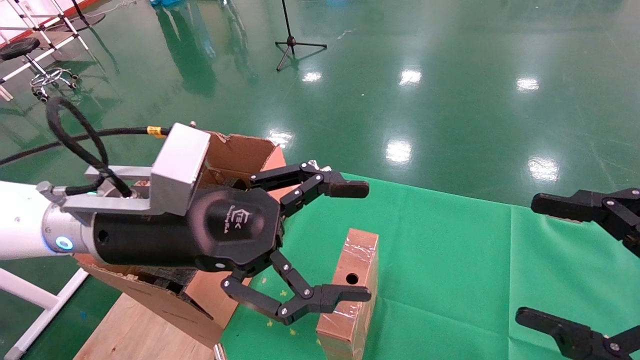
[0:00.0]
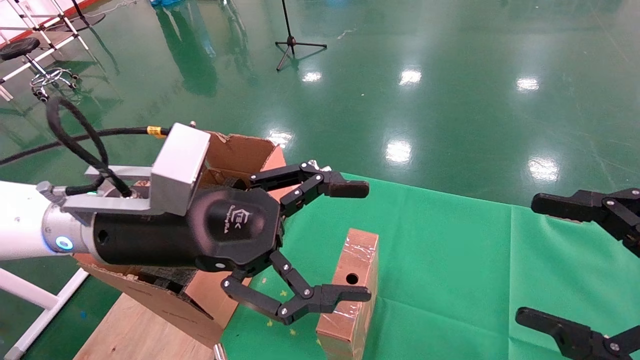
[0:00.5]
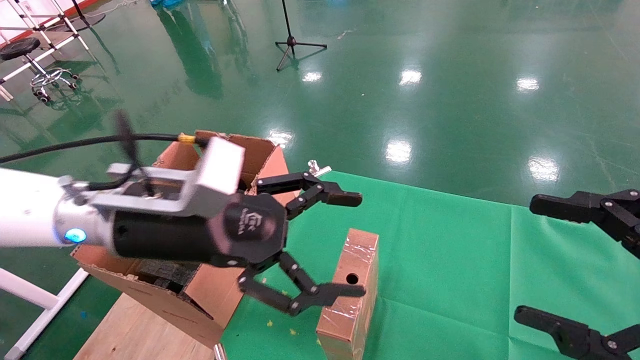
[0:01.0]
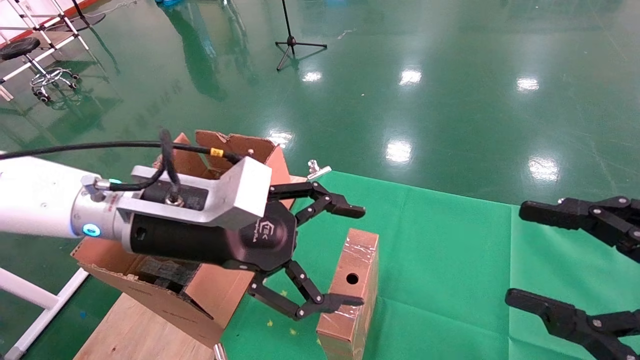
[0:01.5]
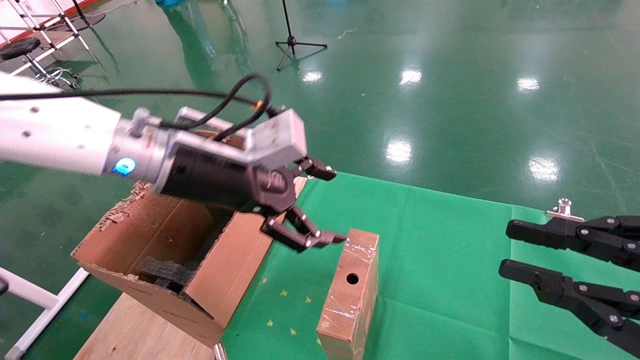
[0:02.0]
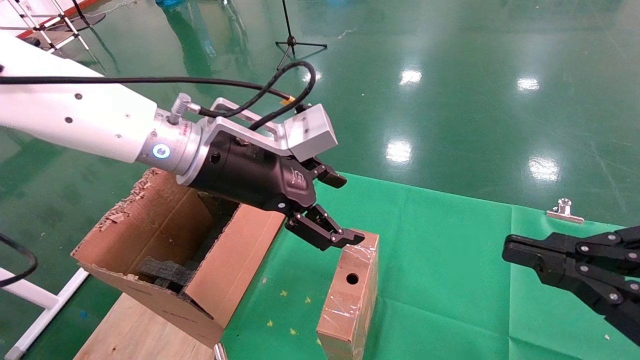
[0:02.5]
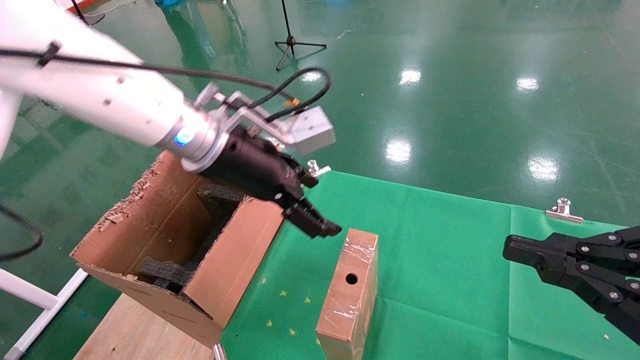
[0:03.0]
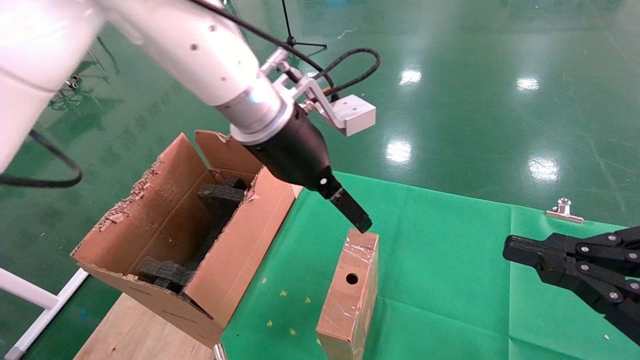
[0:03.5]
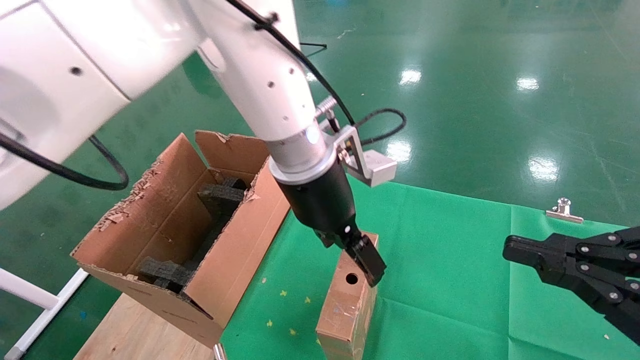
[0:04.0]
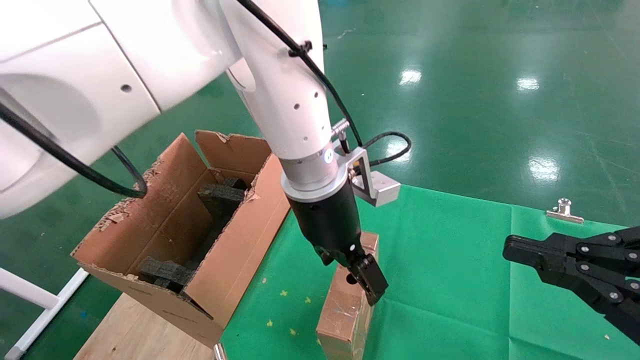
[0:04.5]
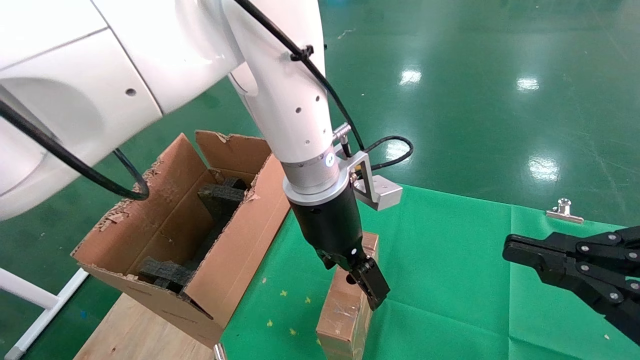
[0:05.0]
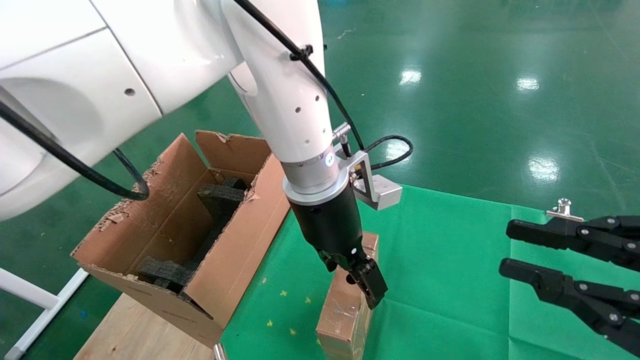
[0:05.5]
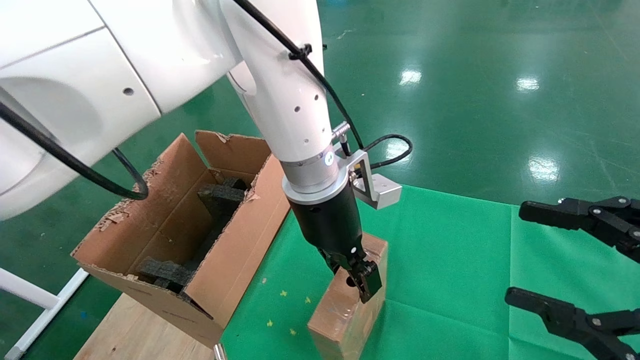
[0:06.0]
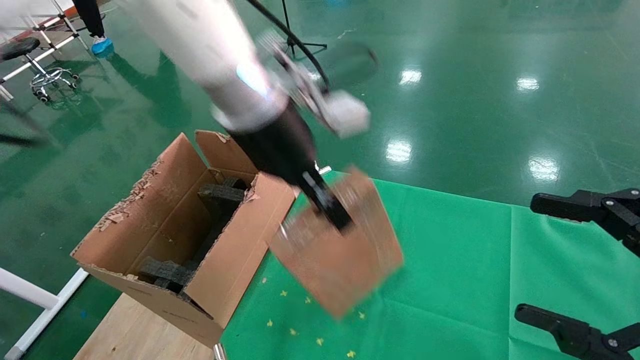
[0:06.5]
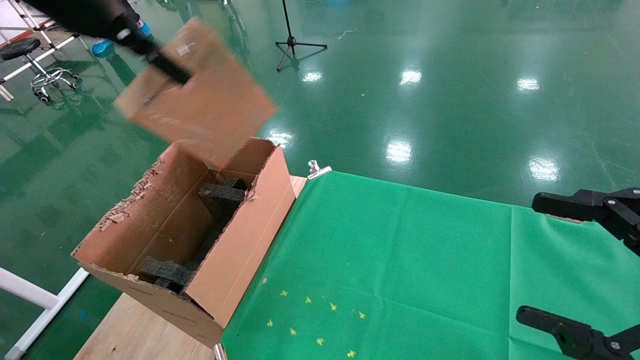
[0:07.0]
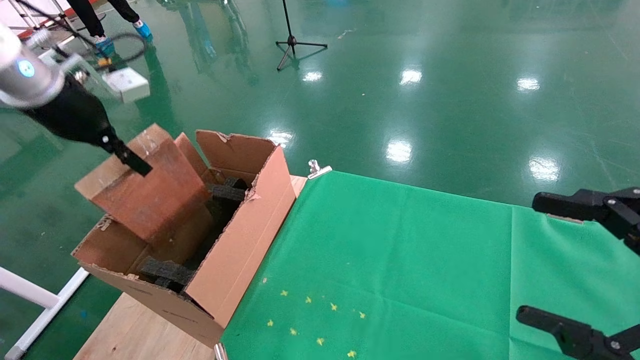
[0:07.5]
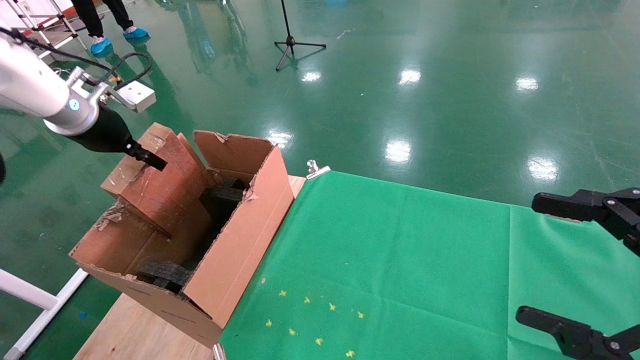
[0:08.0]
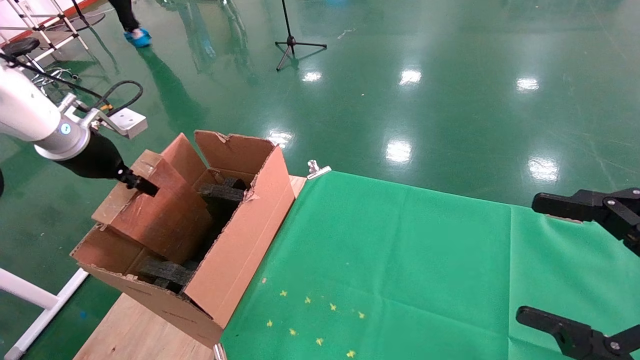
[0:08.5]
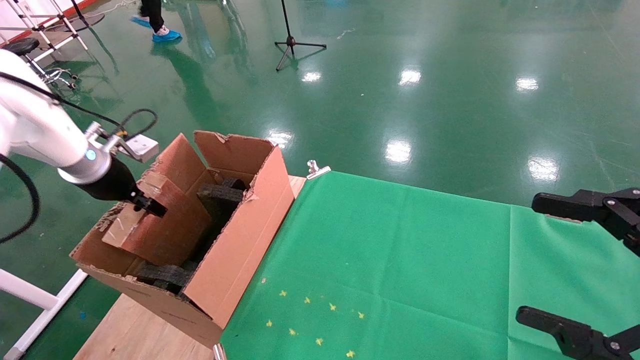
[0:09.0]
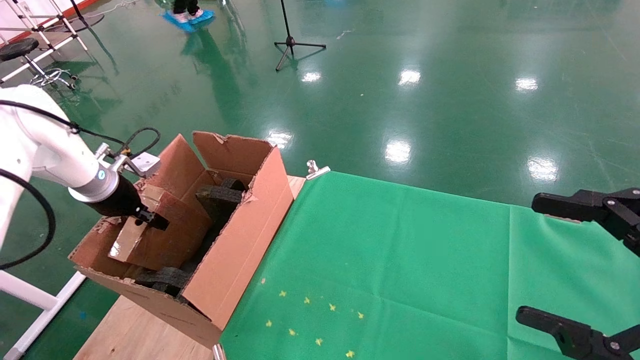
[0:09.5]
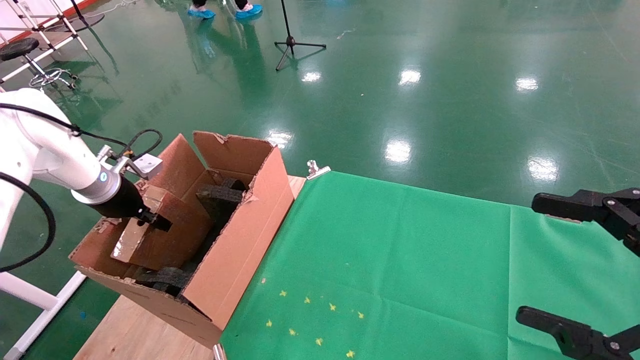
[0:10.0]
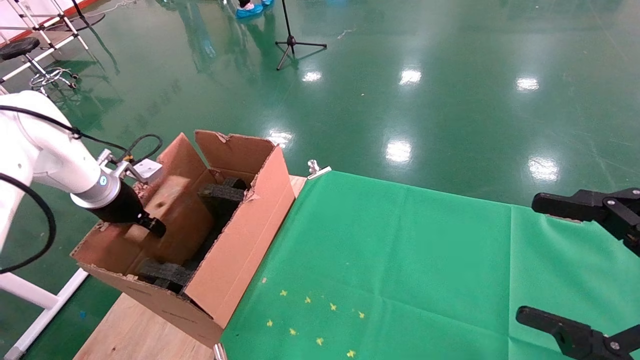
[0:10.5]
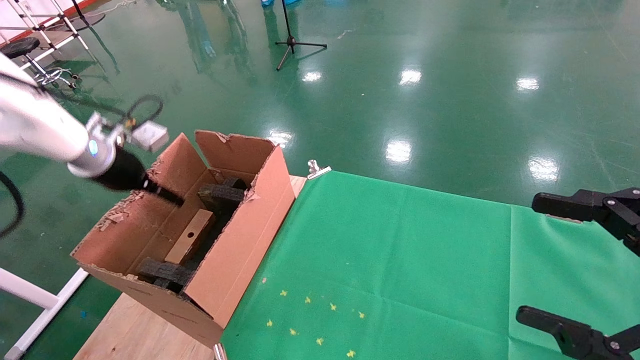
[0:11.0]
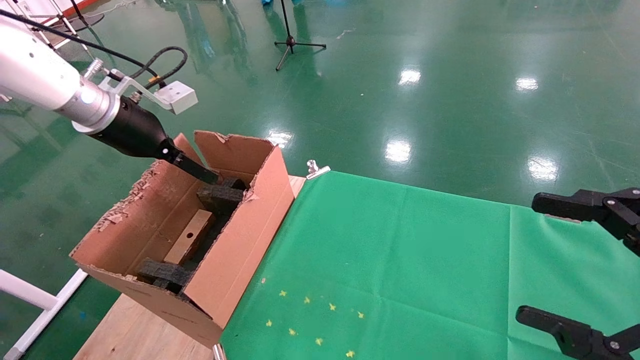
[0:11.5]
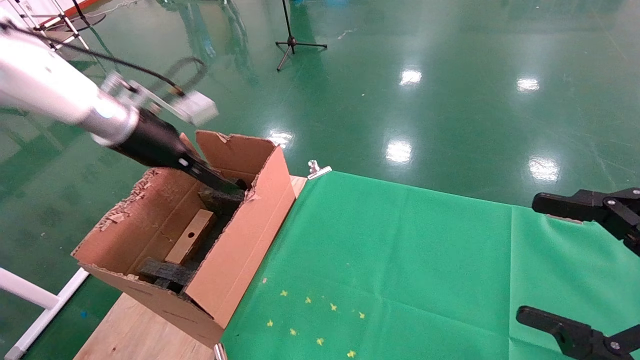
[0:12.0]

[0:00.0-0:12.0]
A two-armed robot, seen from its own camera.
Task of the whole recording: using a robotic arm to pick up a cardboard box and palace it the carton.
Step, 0:01.5 to 0:06.0: Pick up the mouse and the power cord paper box.
Step, 0:06.5 to 0:11.0: Place the mouse and the power cord paper box into the container.
0:00.0 to 0:02.0: The right gripper closes; the left gripper travels forward by about 5 cm.
0:02.0 to 0:04.0: The left gripper heads to the right, covering roughly 15 cm.
0:04.0 to 0:06.0: The left gripper closes its fingers, while the right gripper opens up.
0:06.0 to 0:08.0: The left gripper goes some 40 cm to the left, and closes; the right gripper opens.
0:08.0 to 0:10.0: The left gripper goes roughly 15 cm downward.
0:10.0 to 0:12.0: The left gripper goes about 15 cm to the right and upward, and opens up.

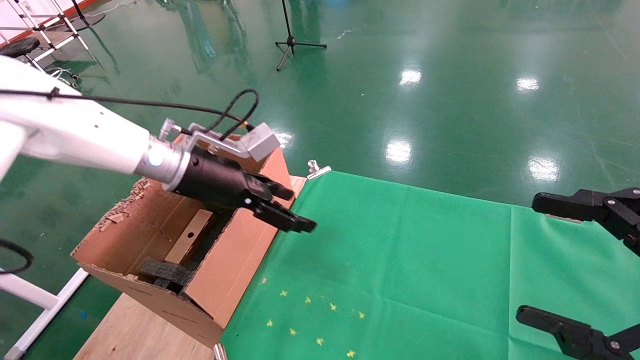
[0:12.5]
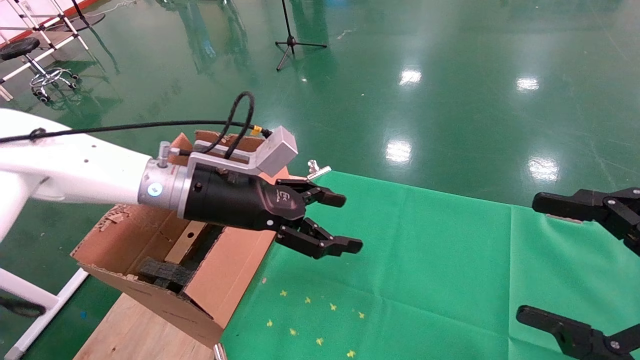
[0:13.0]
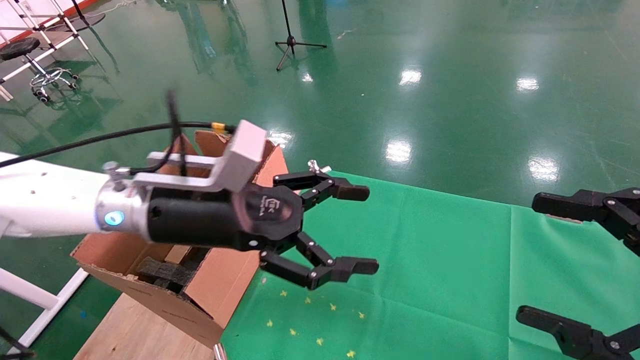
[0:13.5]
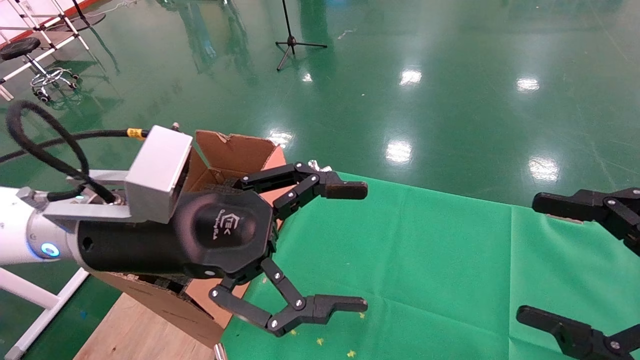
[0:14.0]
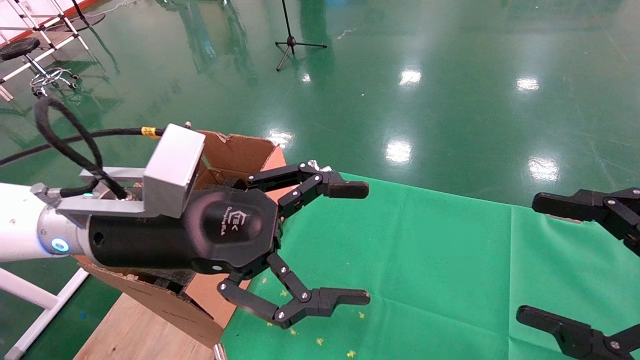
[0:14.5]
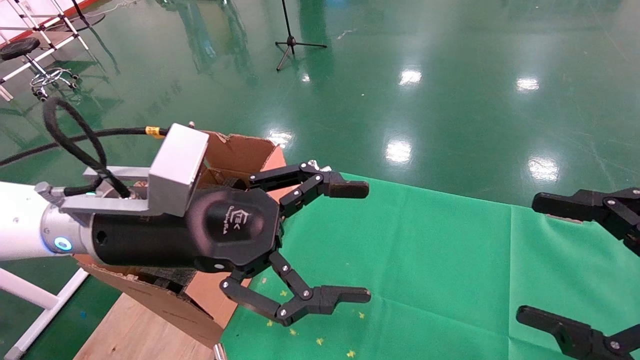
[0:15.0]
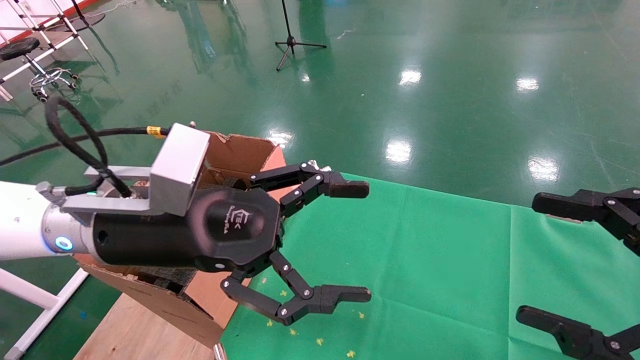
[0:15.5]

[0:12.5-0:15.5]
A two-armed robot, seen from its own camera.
Task of the whole recording: using a robotic arm to pick up a cardboard box and palace it the carton.
0:12.5 to 0:14.0: The left gripper travels backward by approximately 15 cm.
0:14.0 to 0:15.5: Neither gripper changes place.

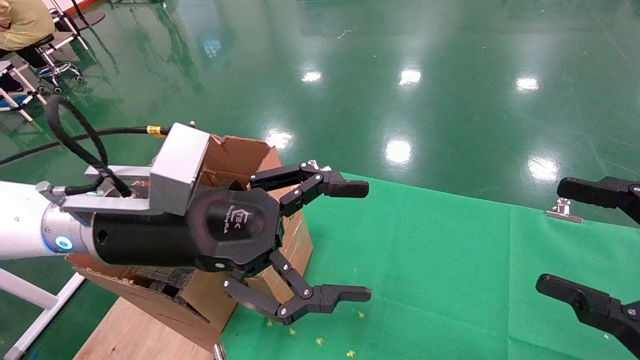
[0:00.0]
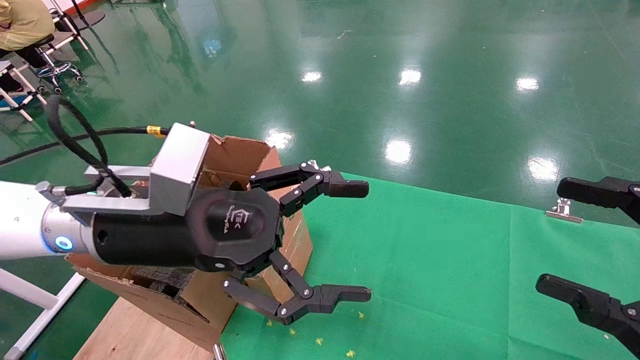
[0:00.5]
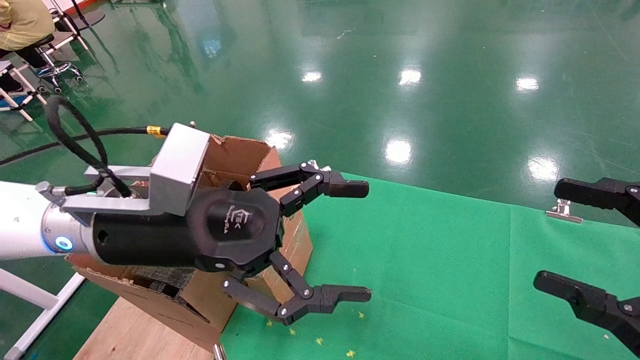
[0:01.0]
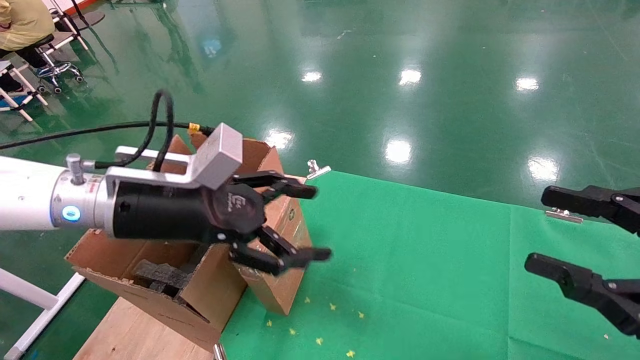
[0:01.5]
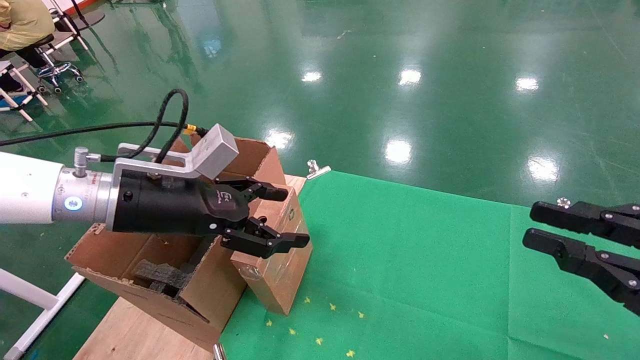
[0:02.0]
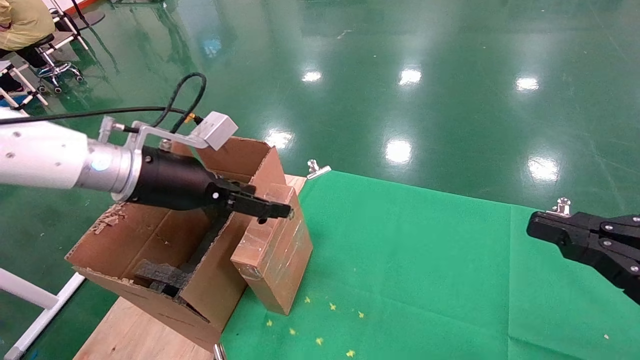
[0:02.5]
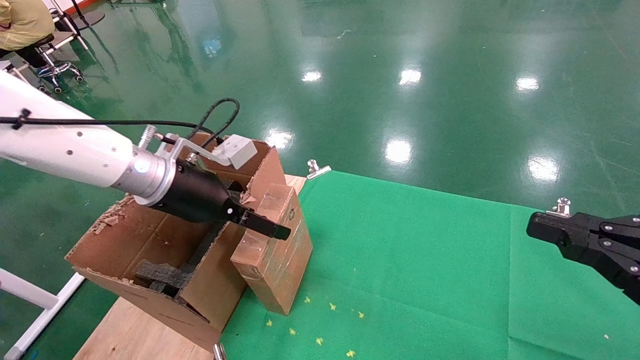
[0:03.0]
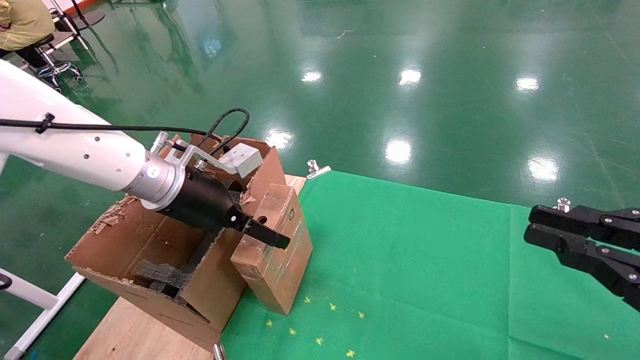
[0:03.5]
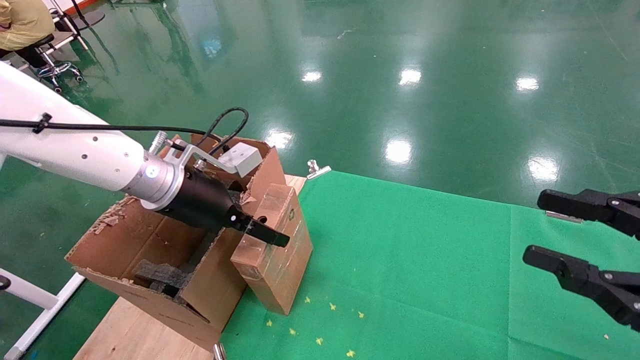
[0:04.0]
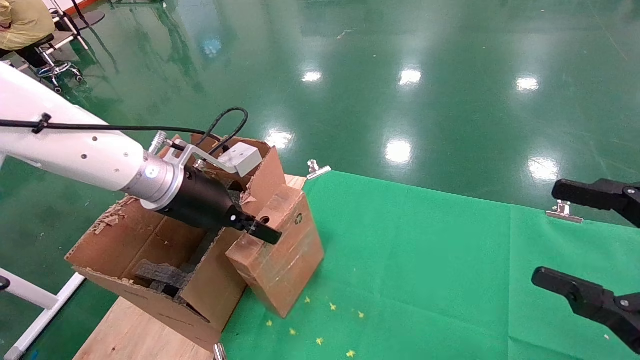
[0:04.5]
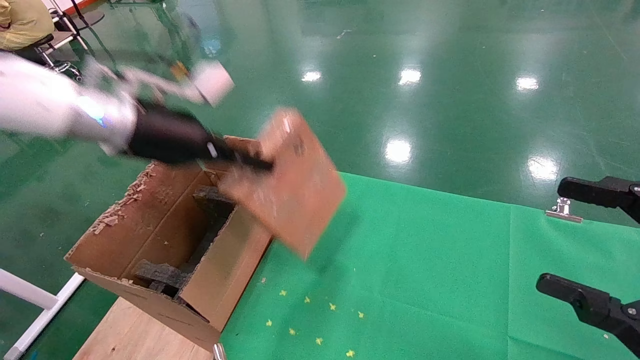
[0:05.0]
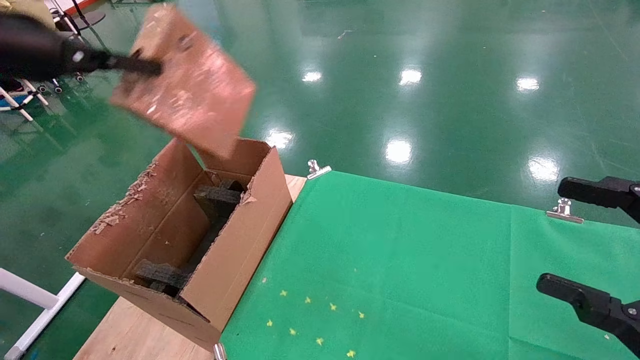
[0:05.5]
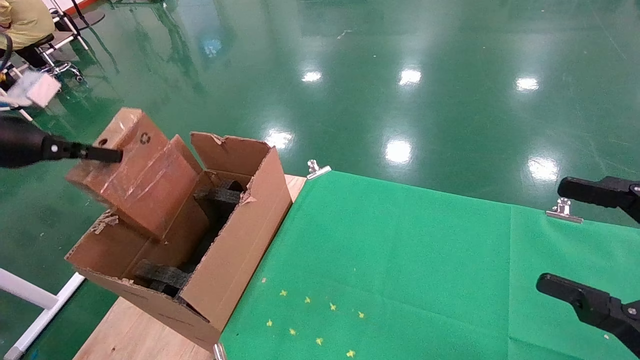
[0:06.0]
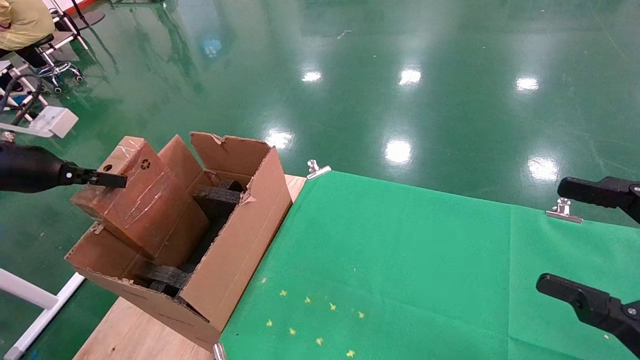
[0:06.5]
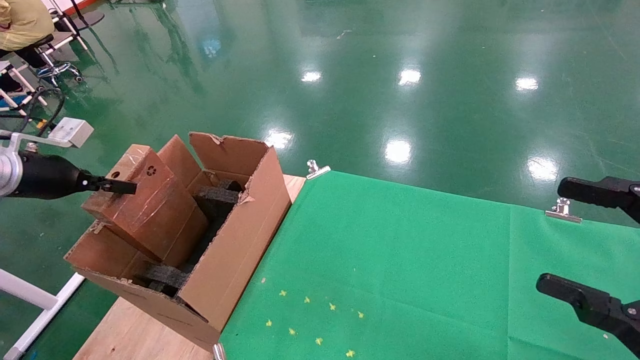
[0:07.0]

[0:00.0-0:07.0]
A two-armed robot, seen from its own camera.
Task of the whole recording: using a robotic arm to pick up a cardboard box and palace it the carton.
Step, 0:01.5 to 0:04.5: Pick up the mouse and the power cord paper box.
0:00.0 to 0:02.0: The left gripper goes about 10 cm to the left and forward. Meanwhile the right gripper closes.
0:02.0 to 0:03.5: The left gripper heads forward, covering approximately 5 cm.
0:03.5 to 0:05.0: The left gripper moves upward, approximately 10 cm, and closes; the right gripper opens.
0:05.0 to 0:07.0: The left gripper moves to the left and downward, roughly 25 cm.
